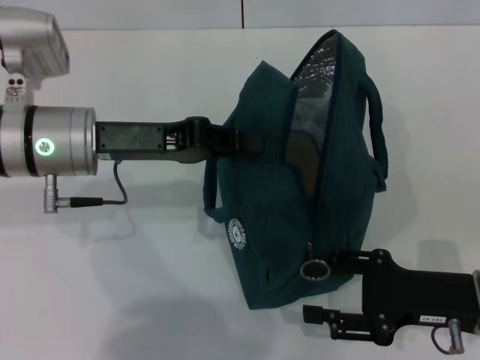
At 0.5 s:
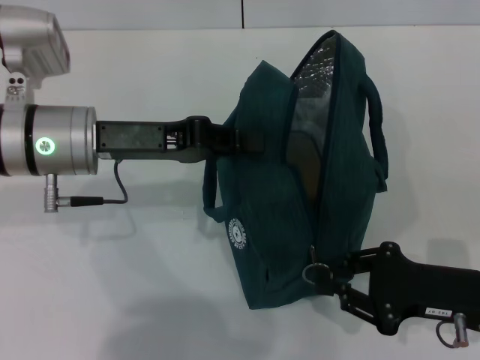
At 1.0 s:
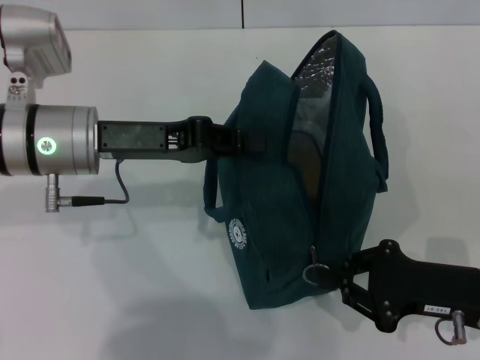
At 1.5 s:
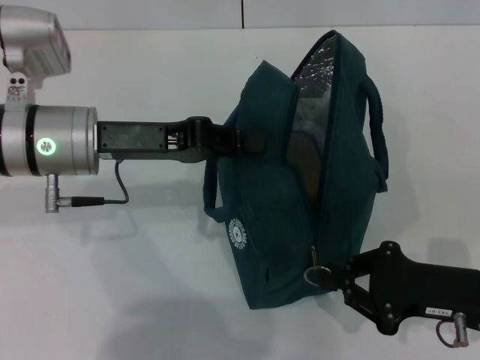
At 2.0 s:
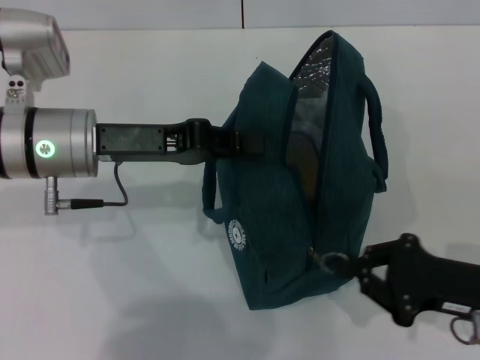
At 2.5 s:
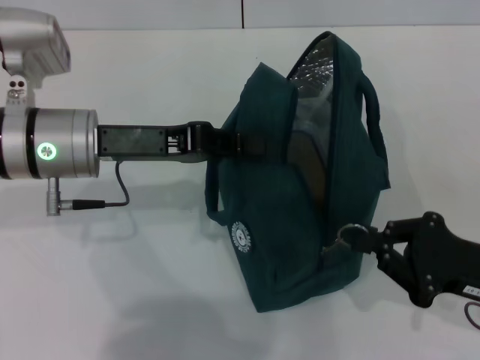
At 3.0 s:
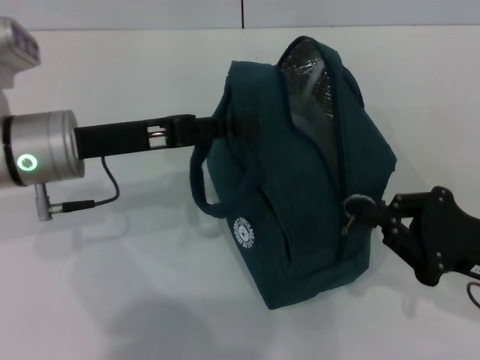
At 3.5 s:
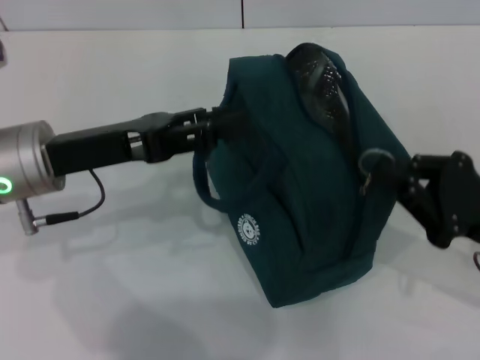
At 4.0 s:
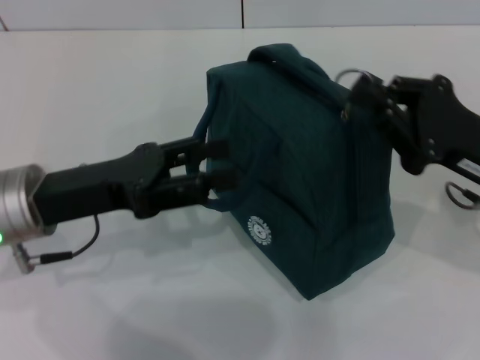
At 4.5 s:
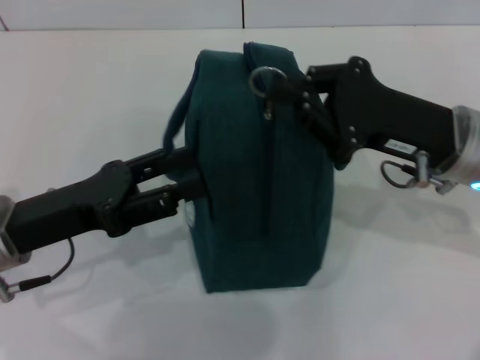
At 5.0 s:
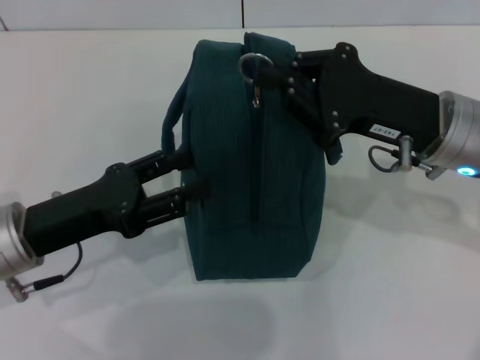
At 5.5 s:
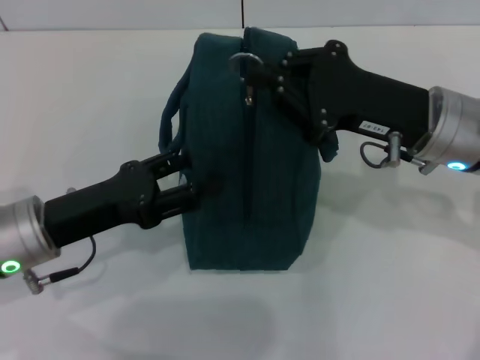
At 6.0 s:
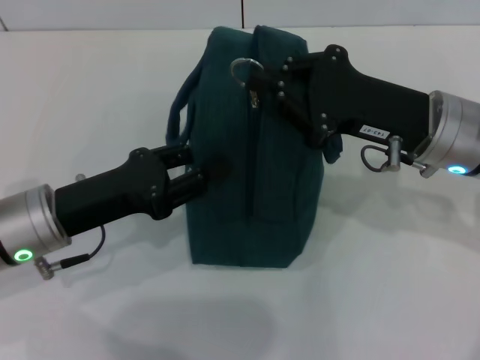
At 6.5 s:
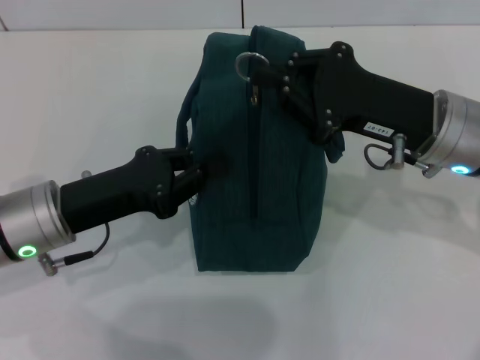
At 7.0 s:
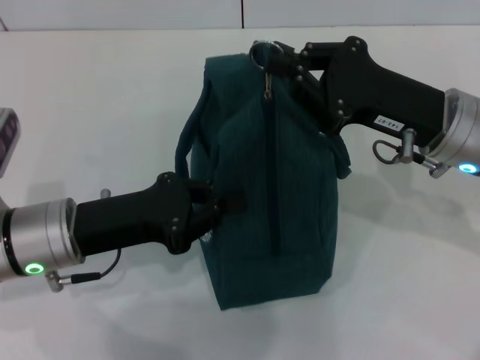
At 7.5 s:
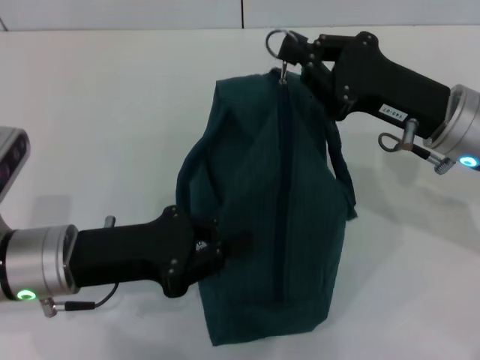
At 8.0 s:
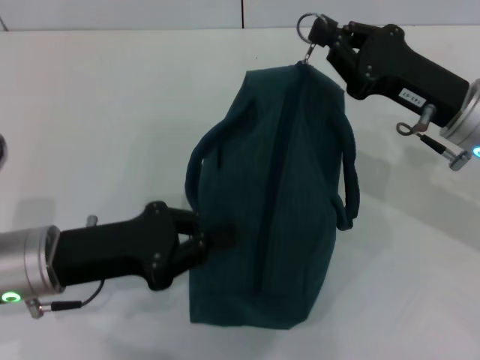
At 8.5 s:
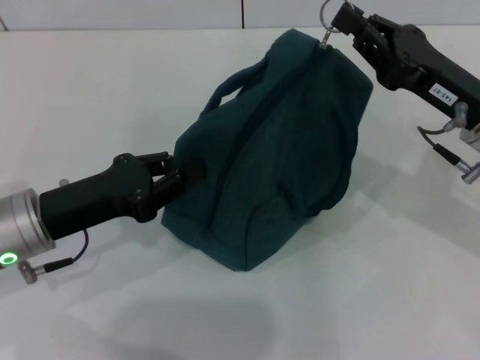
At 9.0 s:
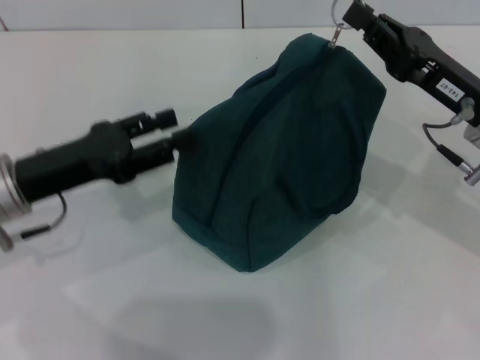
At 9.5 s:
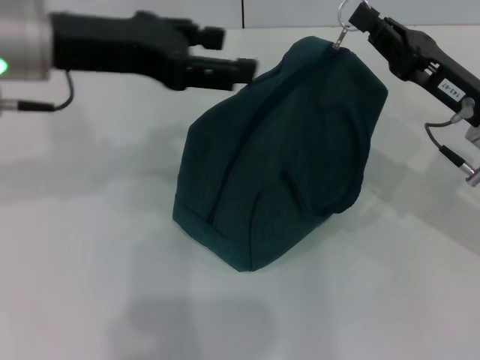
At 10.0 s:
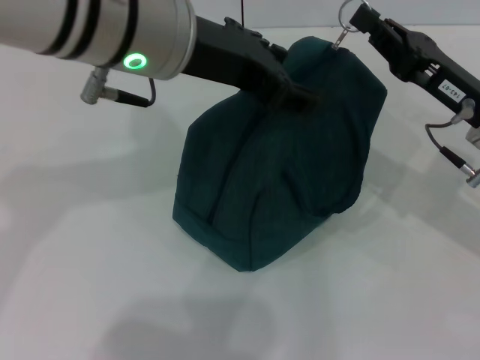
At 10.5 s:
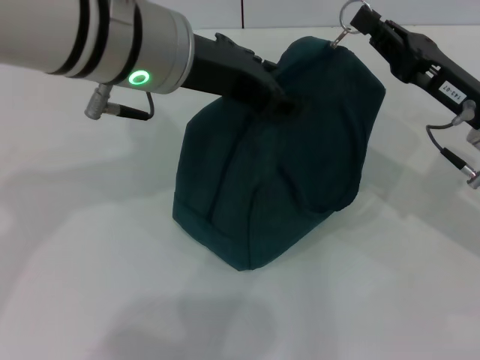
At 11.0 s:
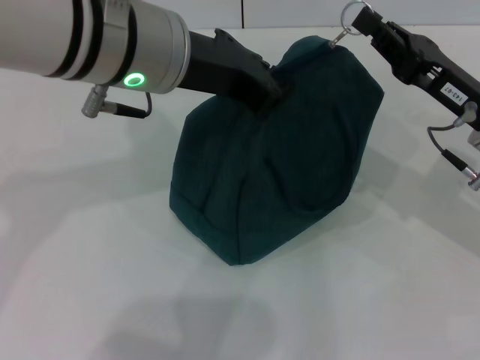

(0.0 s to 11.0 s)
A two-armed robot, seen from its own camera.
Step, 0.0 s - 3.5 s: Hold the lunch bag with your left hand.
0.0 s - 2.0 s: The right gripper closes its fingers.
2.0 s - 3.5 s: The left gripper opens up.
3.5 s - 5.5 s: The right gripper travels to the left, forward and upward by about 15 cm, while the left gripper goes some 5 cm downward.
5.5 s - 7.5 s: The left gripper closes.
7.5 s - 9.0 s: The left gripper ends up some 5 cm from where it was, and opens its fingers.
9.0 s - 11.0 s: The left gripper moves to the right and upward, roughly 20 cm.

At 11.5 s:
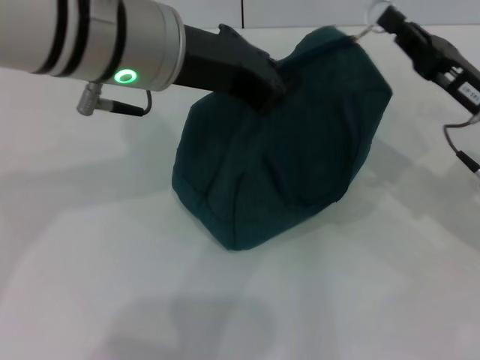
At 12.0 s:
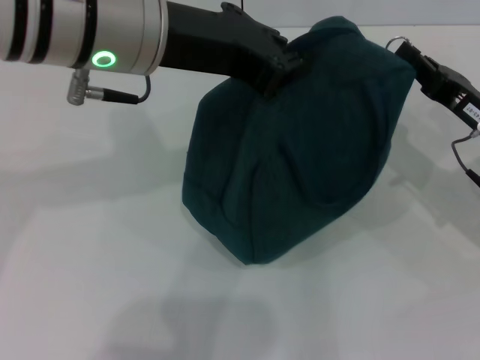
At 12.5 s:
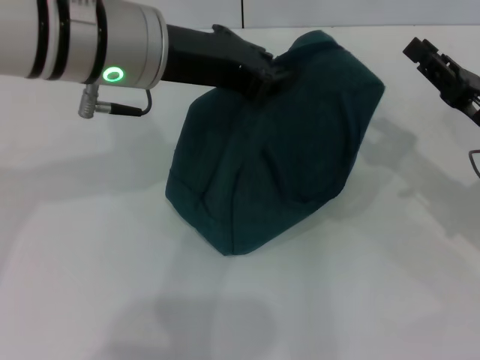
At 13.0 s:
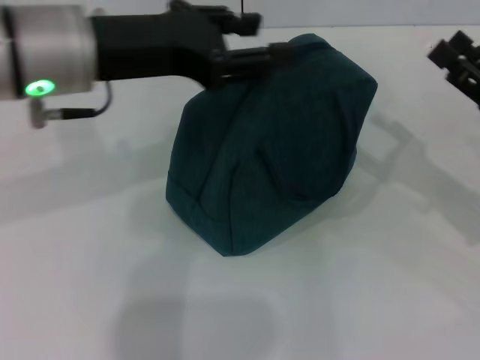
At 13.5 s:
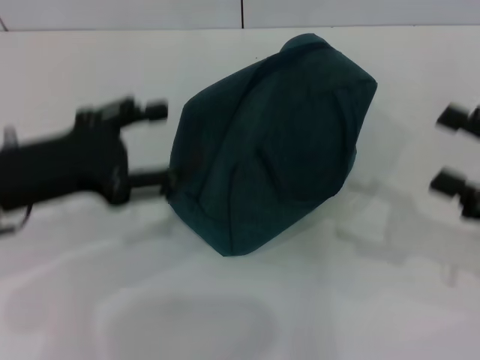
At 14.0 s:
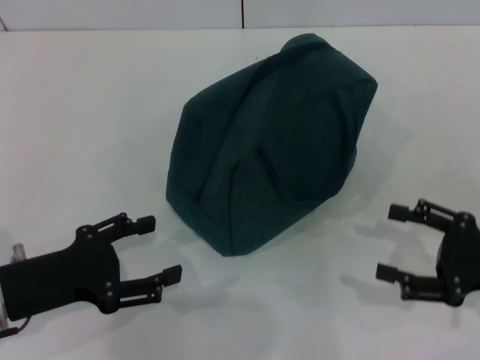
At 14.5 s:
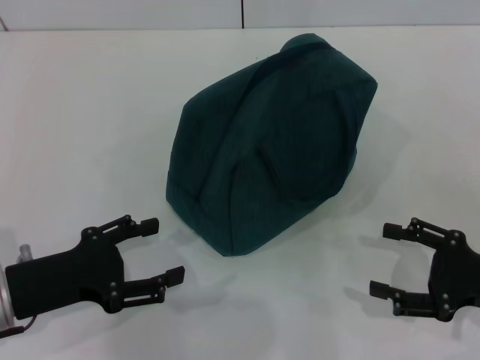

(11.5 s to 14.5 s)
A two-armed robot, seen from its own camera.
11.5 s - 13.0 s: The right gripper is displaced to the right by some 5 cm, and opens; the left gripper moves to the left, roughly 5 cm.
13.0 s - 14.5 s: The right gripper travels backward and downward by some 10 cm; the left gripper moves downward, backward and to the left, some 25 cm, and opens.
